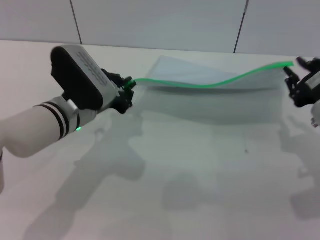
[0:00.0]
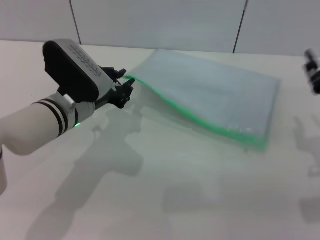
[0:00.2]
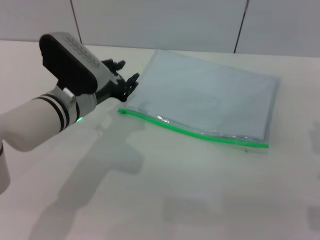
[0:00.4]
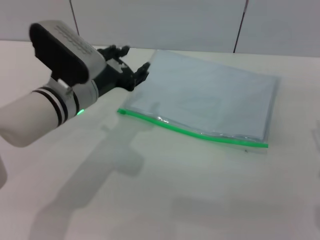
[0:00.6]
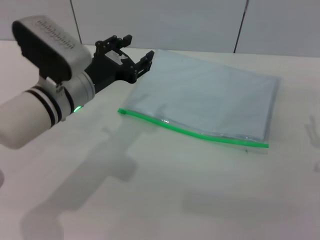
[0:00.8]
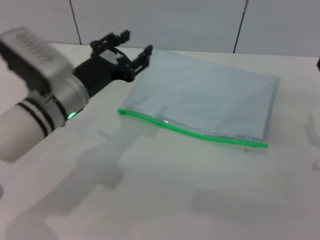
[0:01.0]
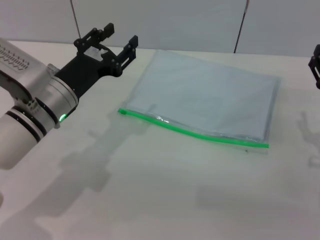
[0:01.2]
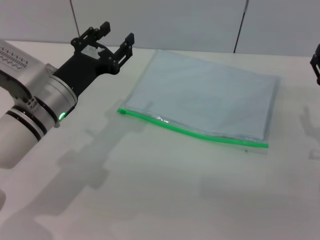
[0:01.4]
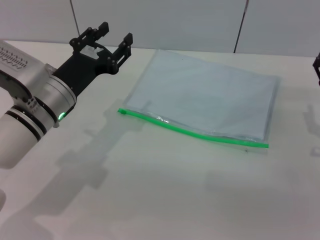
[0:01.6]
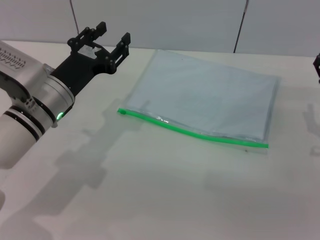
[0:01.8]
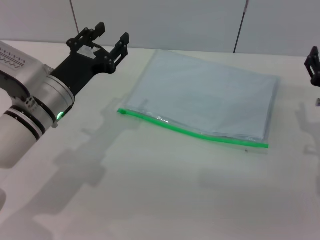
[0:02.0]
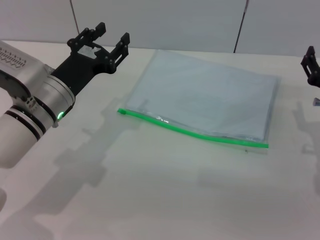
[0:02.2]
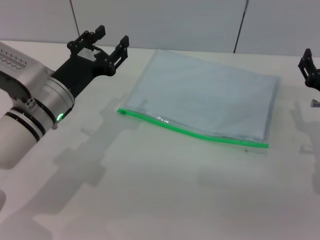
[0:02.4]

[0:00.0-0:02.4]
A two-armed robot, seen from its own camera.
Step, 0:00.4 to 0:01.4: Place the transparent plastic bag.
0:00.0 to 0:01.2: The right gripper goes approximately 5 cm downward, and opens its fingers; the left gripper opens.
0:01.2 to 0:02.4: There are only small adjustments of the grippers.

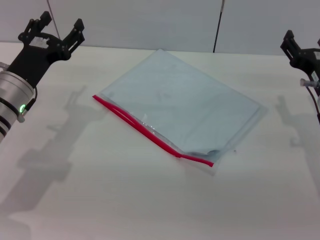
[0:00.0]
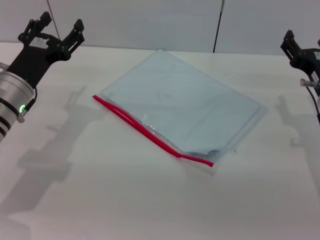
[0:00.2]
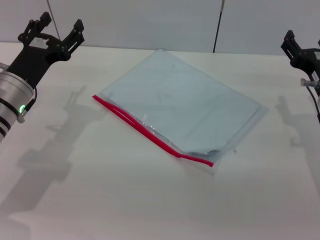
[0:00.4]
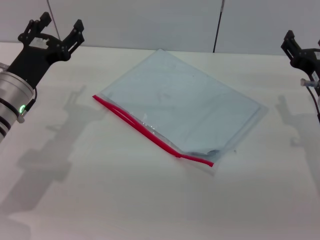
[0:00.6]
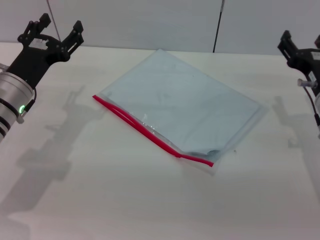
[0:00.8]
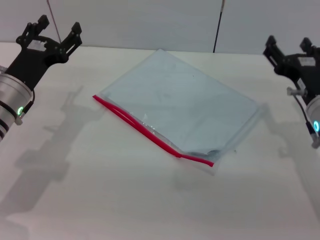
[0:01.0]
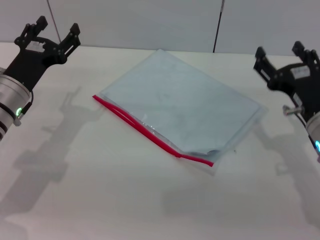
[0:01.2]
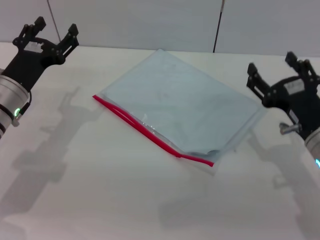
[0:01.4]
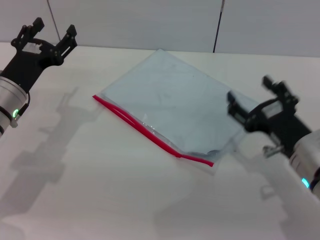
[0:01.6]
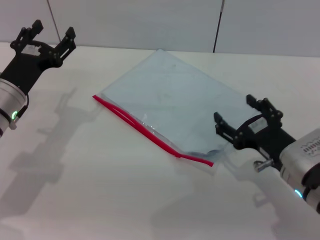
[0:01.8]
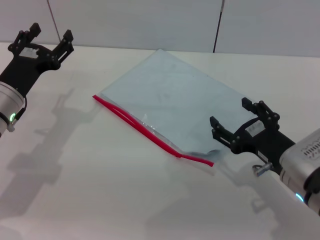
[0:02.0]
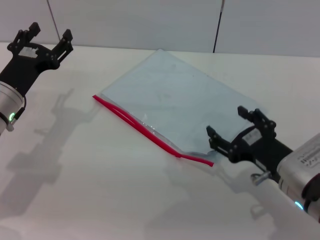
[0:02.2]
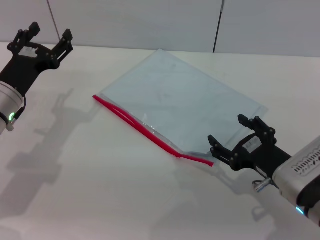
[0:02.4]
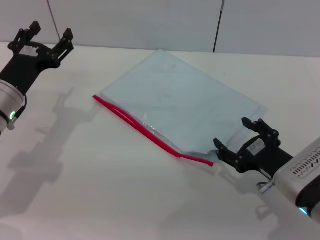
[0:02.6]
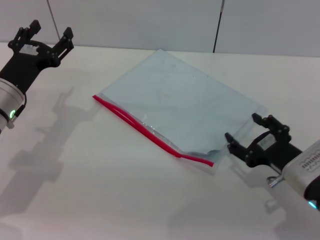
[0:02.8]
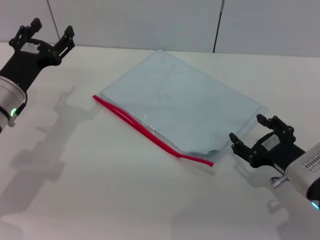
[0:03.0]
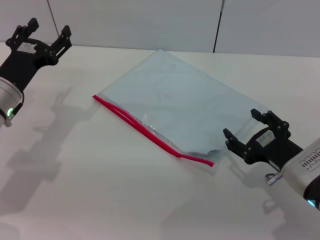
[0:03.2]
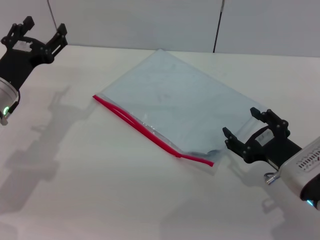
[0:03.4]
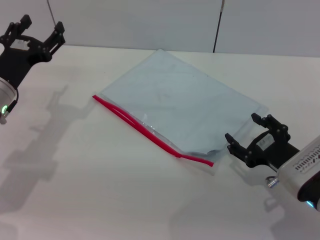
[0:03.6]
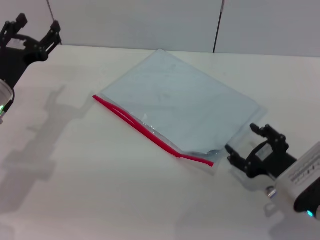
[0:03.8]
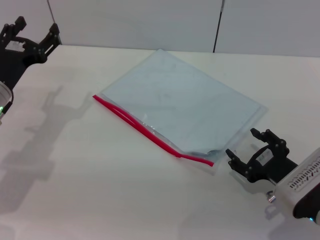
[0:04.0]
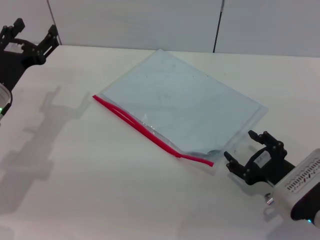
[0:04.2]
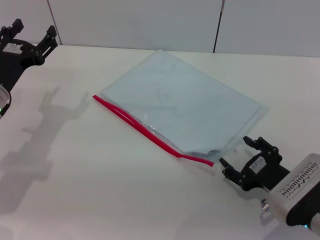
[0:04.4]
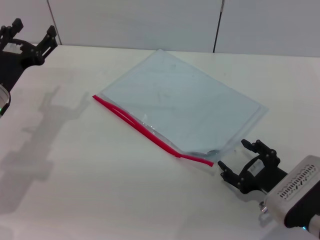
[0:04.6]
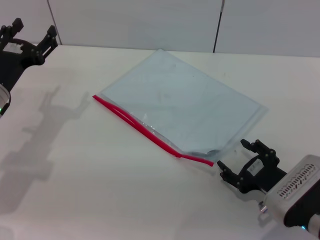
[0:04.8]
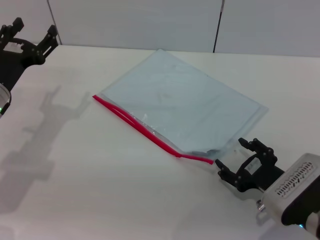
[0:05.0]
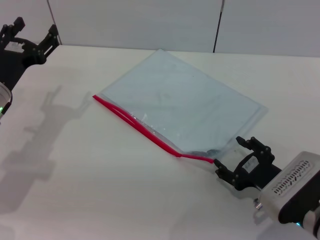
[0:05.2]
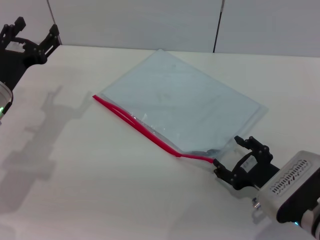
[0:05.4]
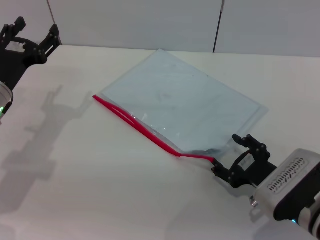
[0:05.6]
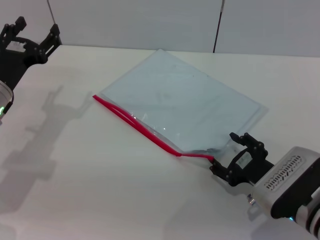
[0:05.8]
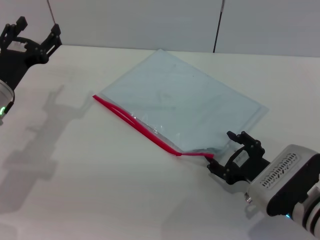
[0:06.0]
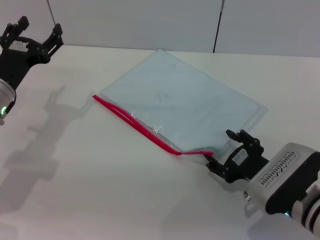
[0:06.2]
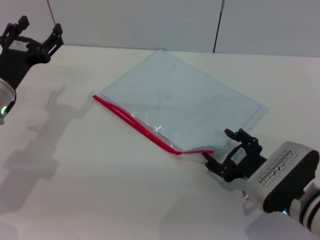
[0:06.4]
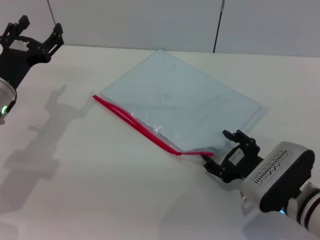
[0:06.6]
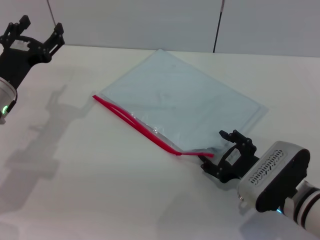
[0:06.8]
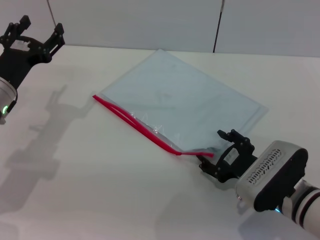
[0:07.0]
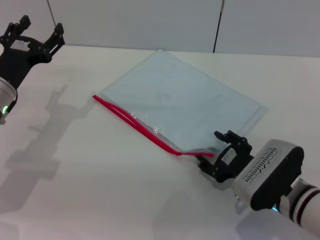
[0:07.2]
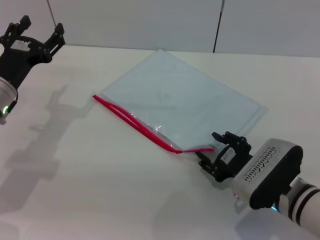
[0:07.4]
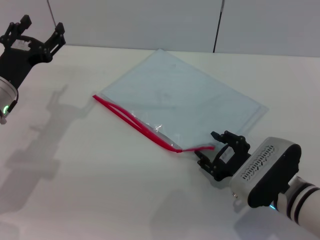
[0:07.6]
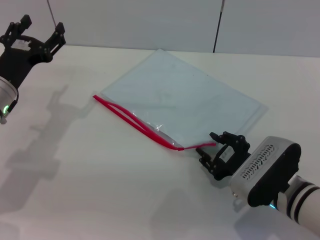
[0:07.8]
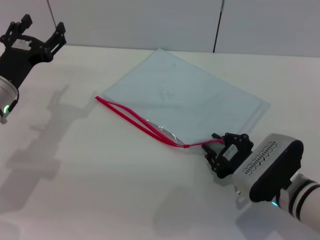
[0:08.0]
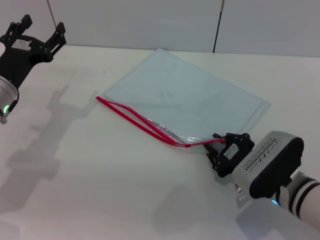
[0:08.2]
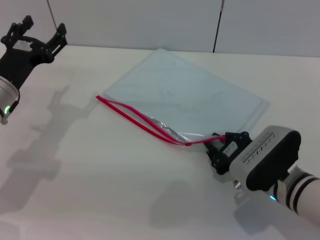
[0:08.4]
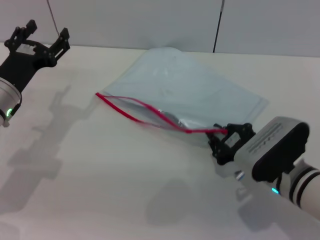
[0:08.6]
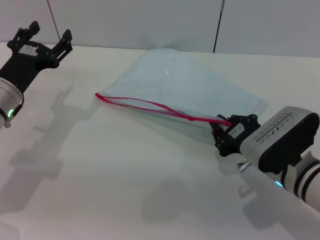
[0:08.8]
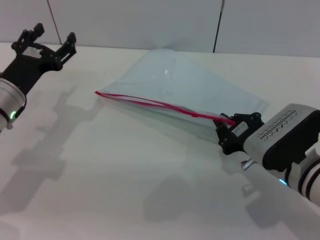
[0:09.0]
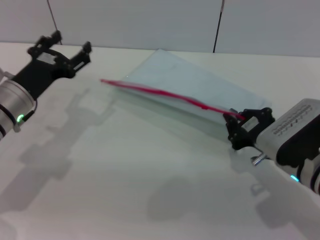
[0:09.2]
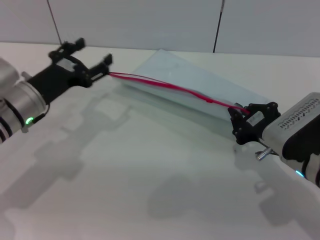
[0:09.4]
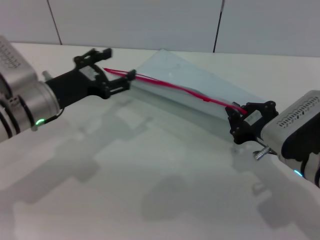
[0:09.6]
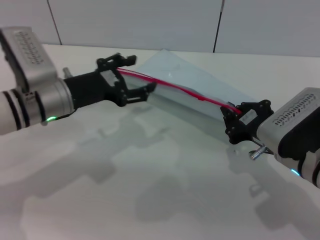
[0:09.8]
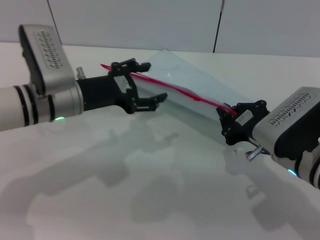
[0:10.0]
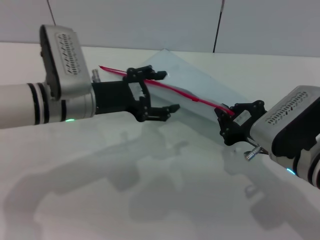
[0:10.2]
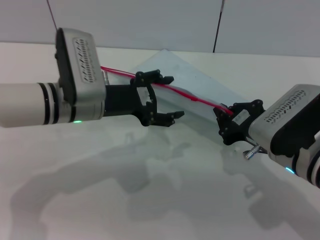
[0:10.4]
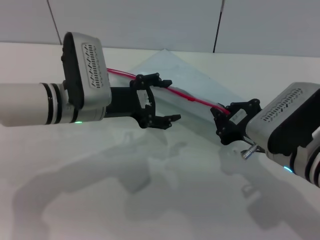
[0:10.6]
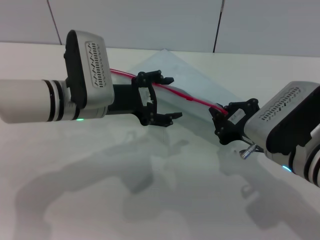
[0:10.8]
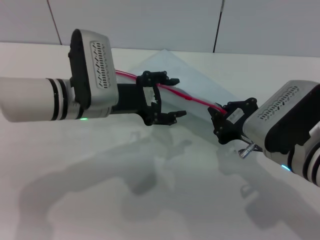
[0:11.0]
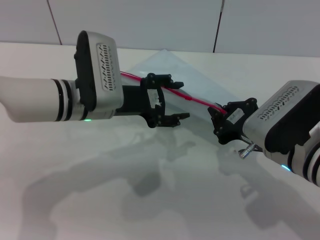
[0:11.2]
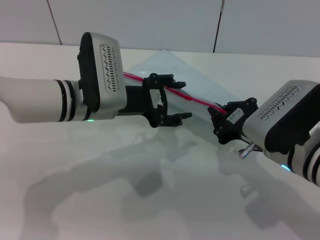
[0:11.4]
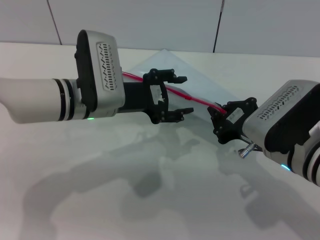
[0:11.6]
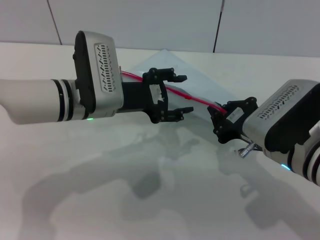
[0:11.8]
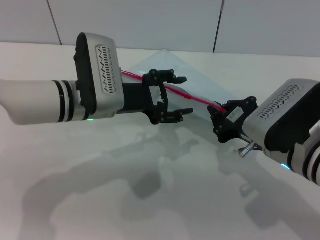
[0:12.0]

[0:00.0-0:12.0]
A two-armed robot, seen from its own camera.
Step, 0:00.0 to 0:09.4: Pick up the transparent plastic bag with the right gripper.
0:00.0 to 0:01.6: The right gripper shifts about 10 cm backward.
0:01.6 to 0:03.0: The grippers make only small movements.
0:03.0 to 0:07.6: The grippers stay close to where they were, moving slightly.
0:07.6 to 0:09.0: The right gripper closes its fingers.
0:09.0 to 0:10.4: The left gripper travels to the right by approximately 10 cm.
0:10.4 to 0:12.0: There are only small adjustments of the grippers.

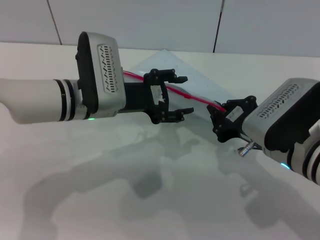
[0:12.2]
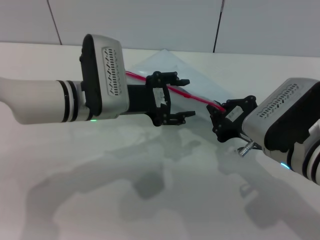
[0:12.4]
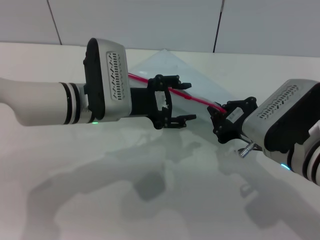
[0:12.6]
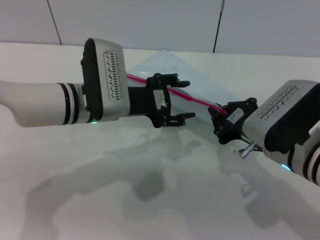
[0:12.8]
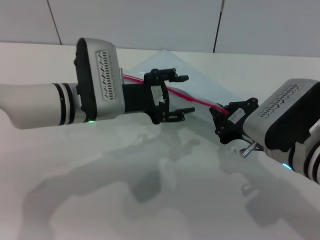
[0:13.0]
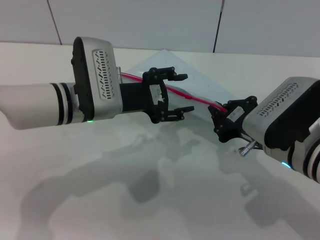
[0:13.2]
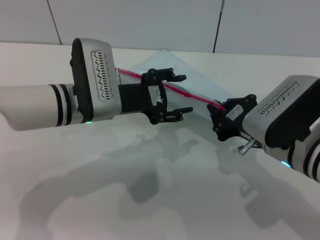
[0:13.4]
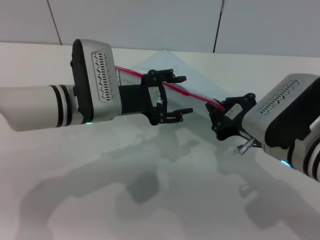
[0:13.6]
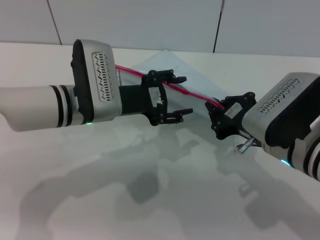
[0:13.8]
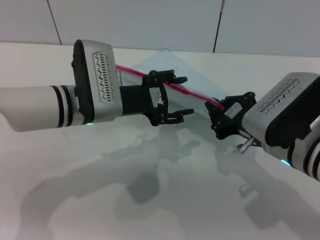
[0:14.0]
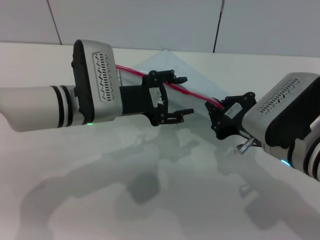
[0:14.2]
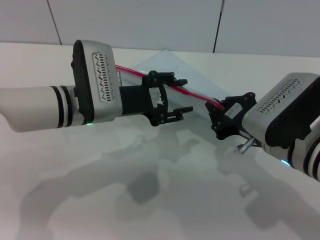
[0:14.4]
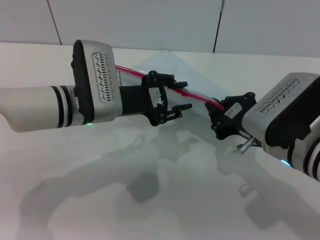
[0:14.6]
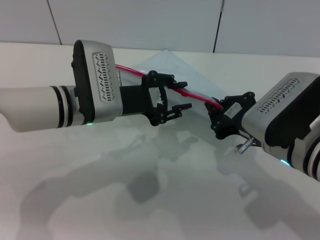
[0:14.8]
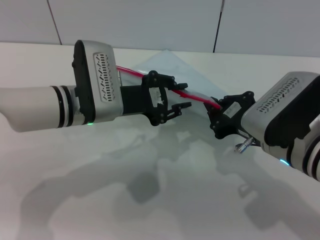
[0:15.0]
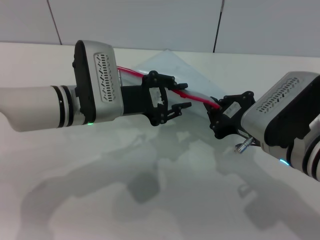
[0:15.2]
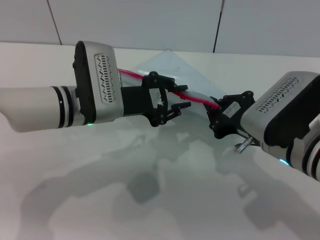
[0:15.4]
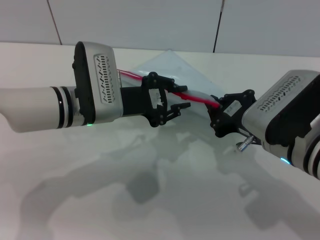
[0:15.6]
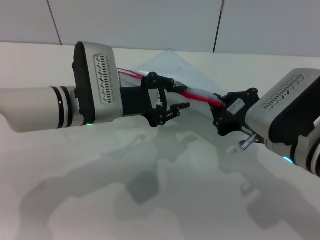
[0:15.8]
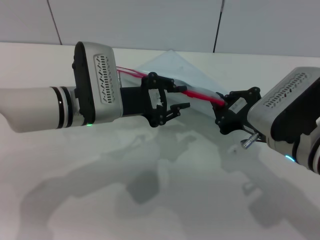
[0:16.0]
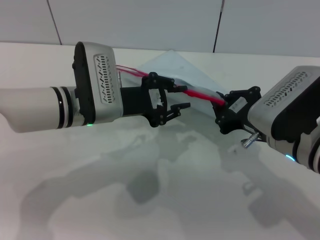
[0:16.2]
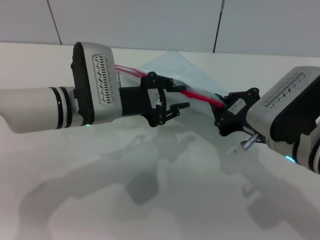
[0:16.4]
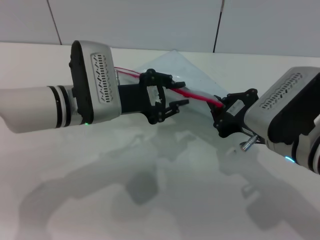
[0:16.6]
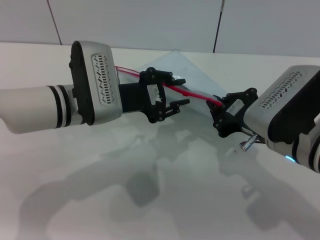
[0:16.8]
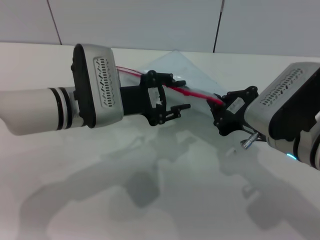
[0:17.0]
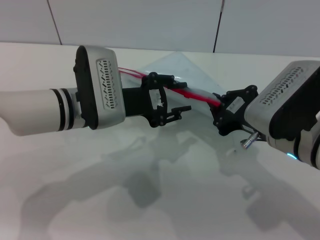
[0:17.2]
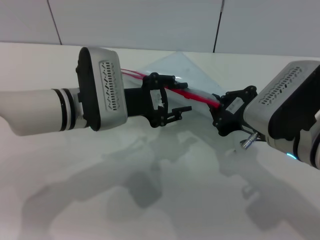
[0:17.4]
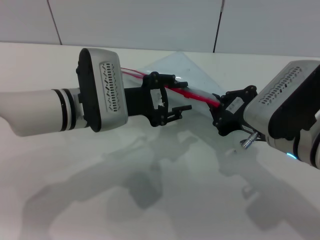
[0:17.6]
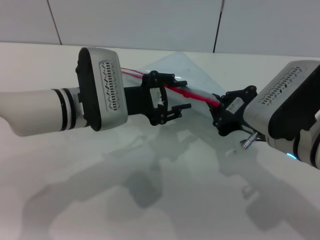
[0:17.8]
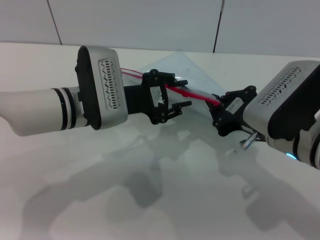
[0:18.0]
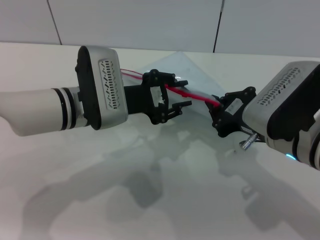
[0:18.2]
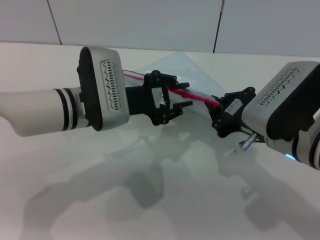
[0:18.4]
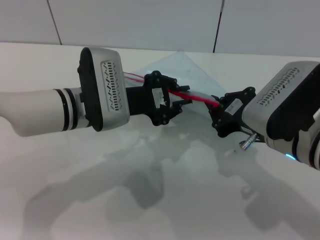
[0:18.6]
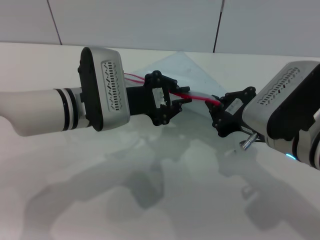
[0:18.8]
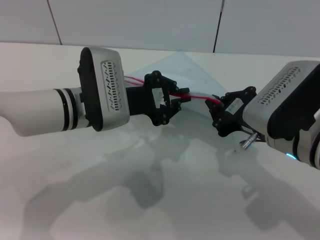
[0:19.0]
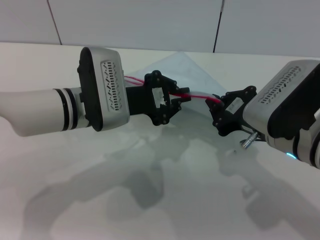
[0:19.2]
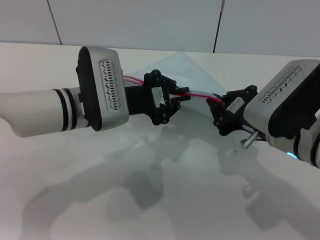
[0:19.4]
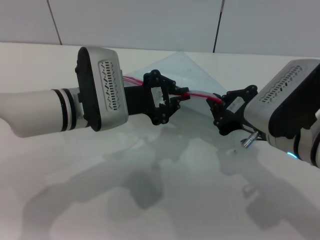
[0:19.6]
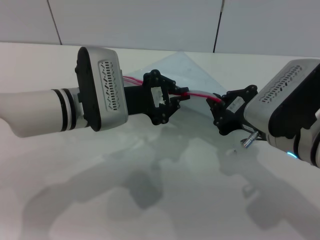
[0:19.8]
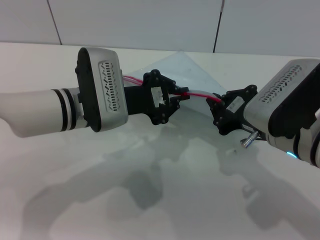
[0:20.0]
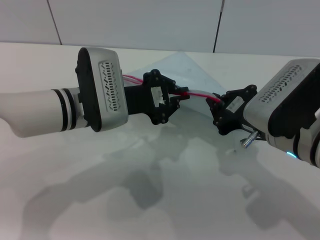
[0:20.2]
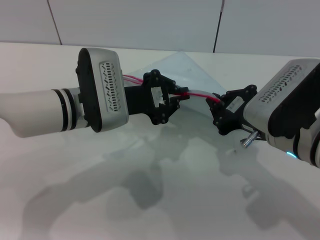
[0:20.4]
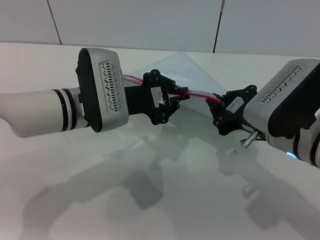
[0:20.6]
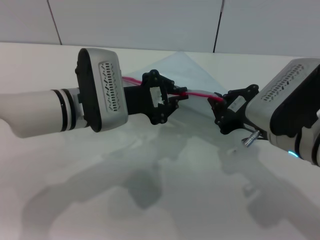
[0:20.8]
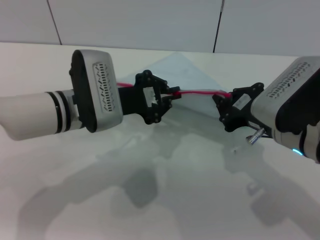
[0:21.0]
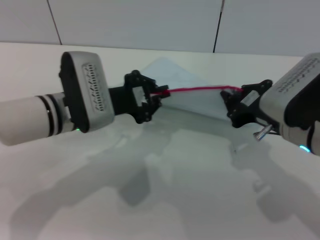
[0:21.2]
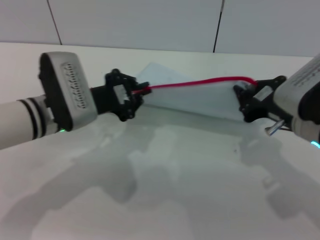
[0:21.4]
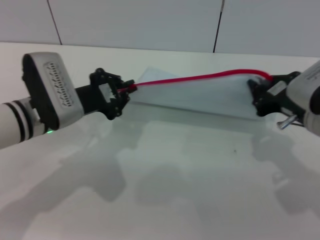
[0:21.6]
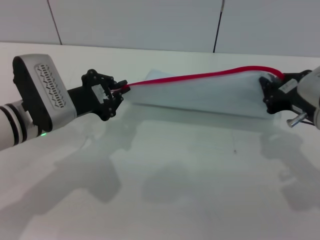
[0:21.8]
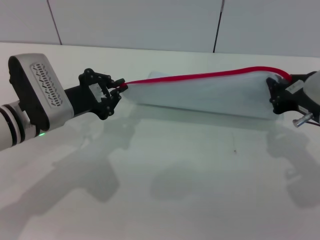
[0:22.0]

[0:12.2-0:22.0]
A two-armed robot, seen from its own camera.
0:12.2 to 0:15.0: Both grippers stay put.
0:15.0 to 0:16.4: Both grippers stay put.
0:16.4 to 0:17.8: Neither gripper changes place.
0:17.8 to 0:19.2: The left gripper closes its fingers.
0:19.2 to 0:20.6: Both grippers stay put.
0:20.6 to 0:22.0: The left gripper heads to the left, covering about 10 cm. The right gripper travels to the right by some 5 cm.
